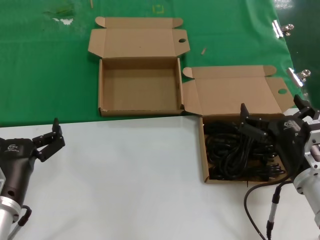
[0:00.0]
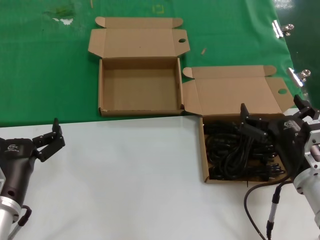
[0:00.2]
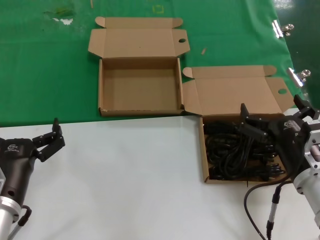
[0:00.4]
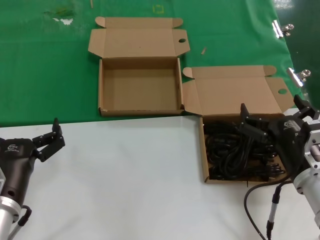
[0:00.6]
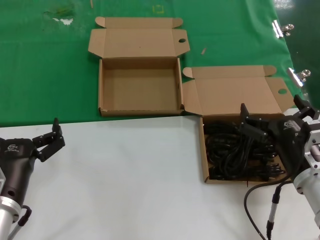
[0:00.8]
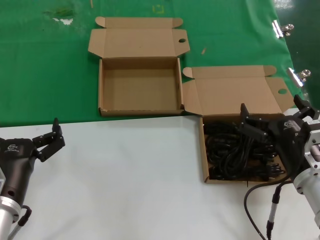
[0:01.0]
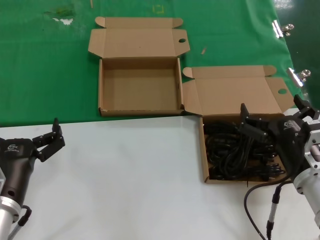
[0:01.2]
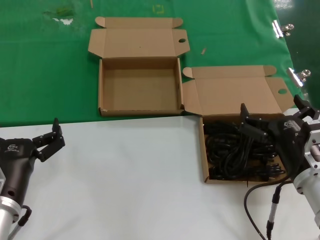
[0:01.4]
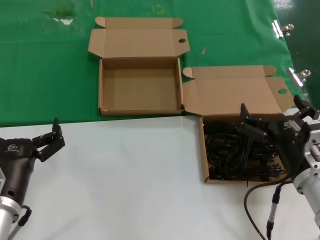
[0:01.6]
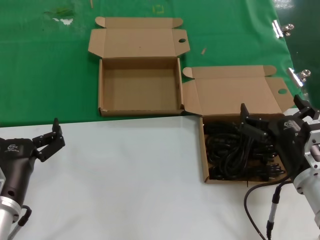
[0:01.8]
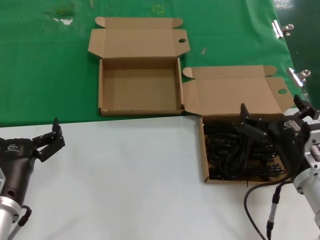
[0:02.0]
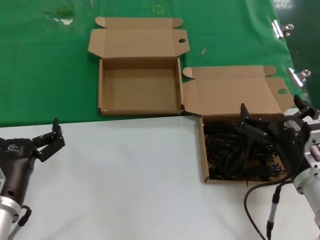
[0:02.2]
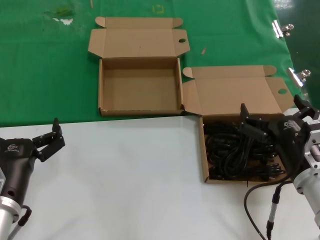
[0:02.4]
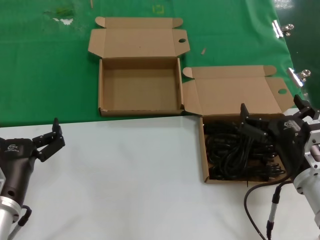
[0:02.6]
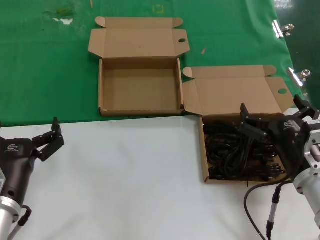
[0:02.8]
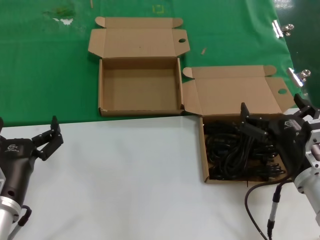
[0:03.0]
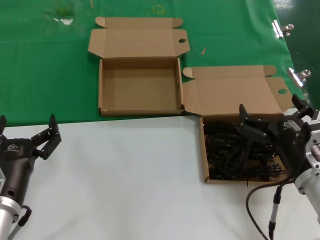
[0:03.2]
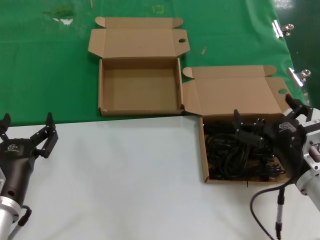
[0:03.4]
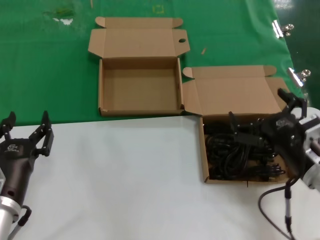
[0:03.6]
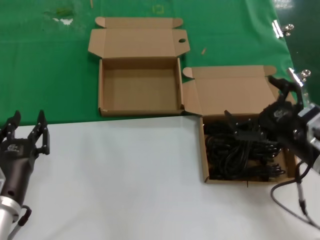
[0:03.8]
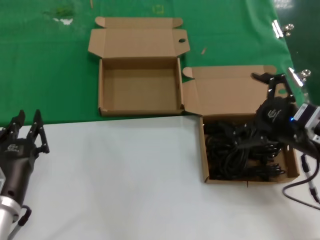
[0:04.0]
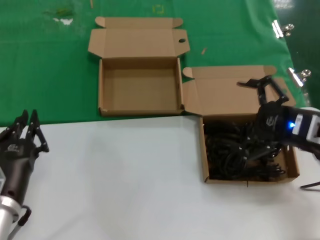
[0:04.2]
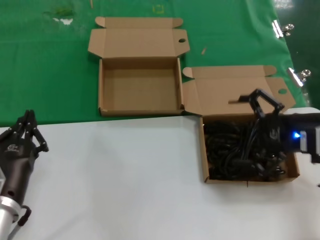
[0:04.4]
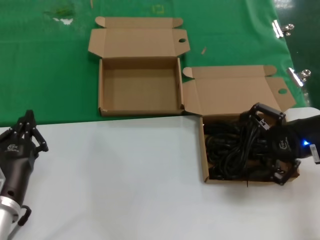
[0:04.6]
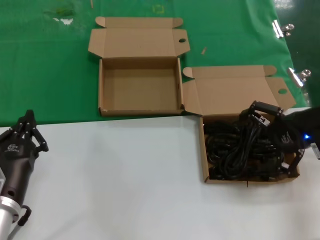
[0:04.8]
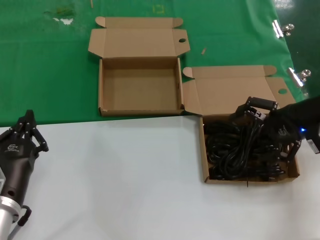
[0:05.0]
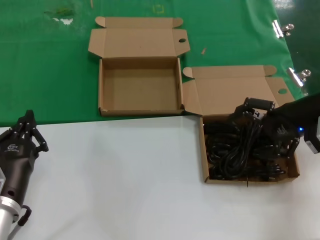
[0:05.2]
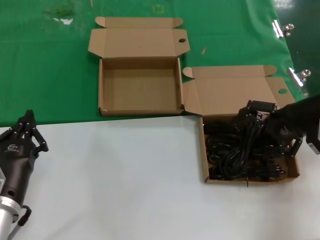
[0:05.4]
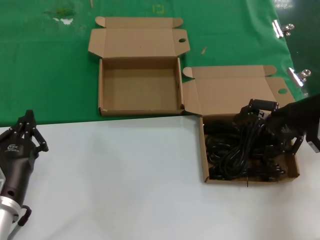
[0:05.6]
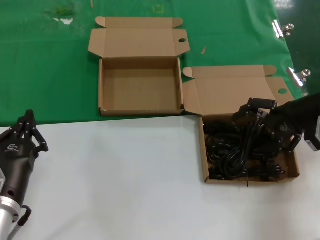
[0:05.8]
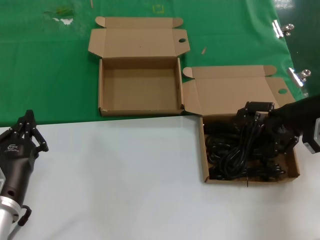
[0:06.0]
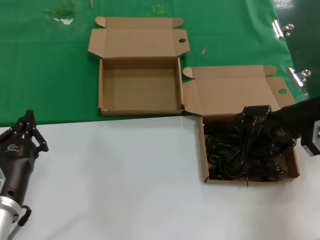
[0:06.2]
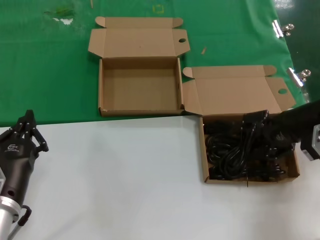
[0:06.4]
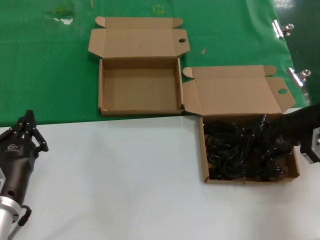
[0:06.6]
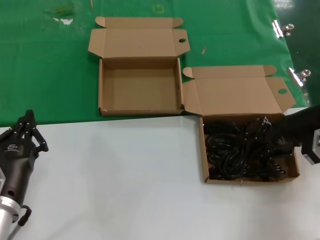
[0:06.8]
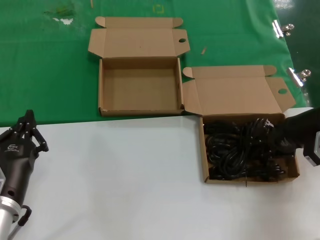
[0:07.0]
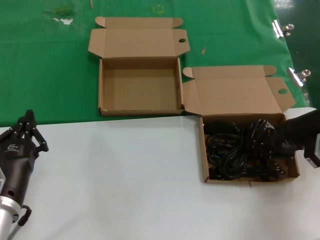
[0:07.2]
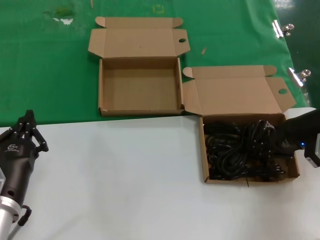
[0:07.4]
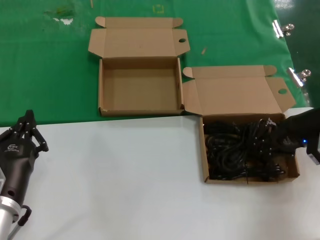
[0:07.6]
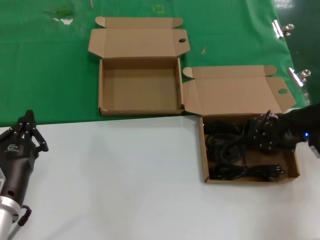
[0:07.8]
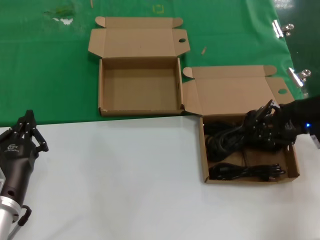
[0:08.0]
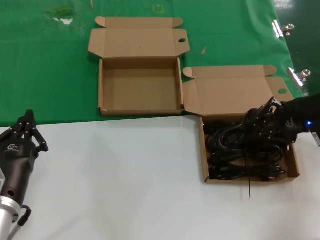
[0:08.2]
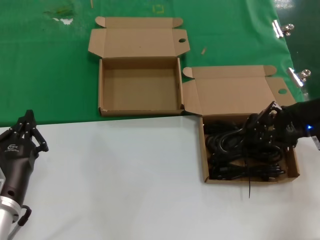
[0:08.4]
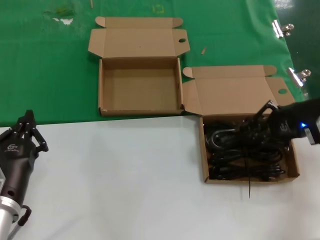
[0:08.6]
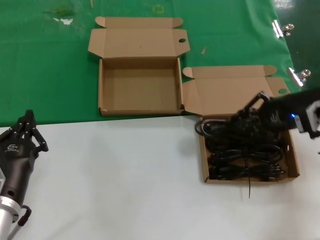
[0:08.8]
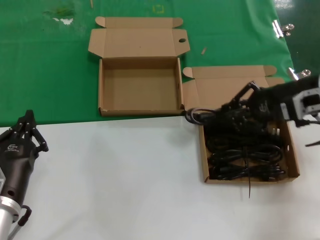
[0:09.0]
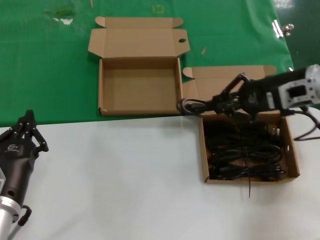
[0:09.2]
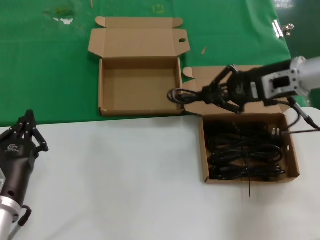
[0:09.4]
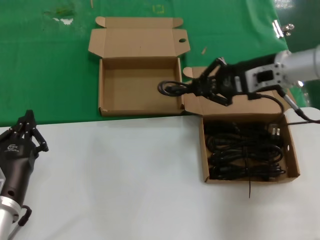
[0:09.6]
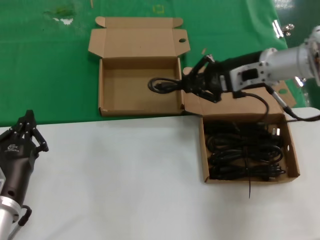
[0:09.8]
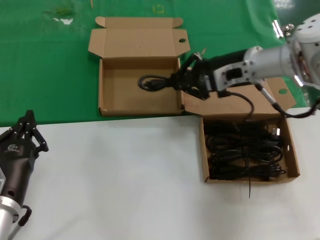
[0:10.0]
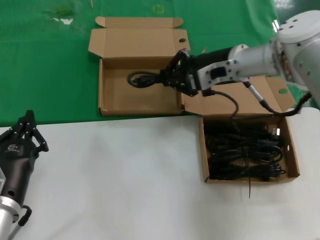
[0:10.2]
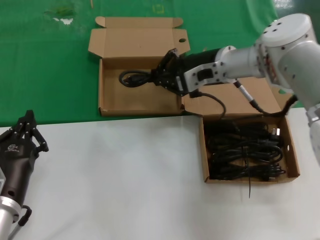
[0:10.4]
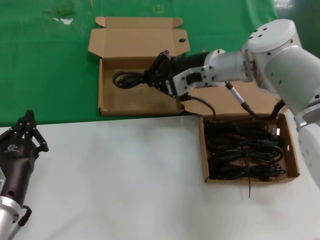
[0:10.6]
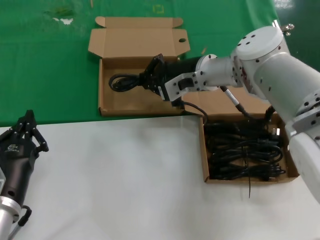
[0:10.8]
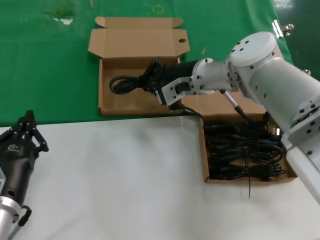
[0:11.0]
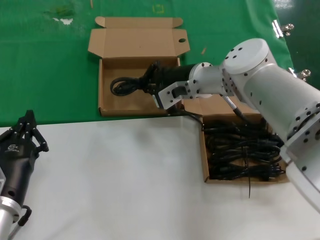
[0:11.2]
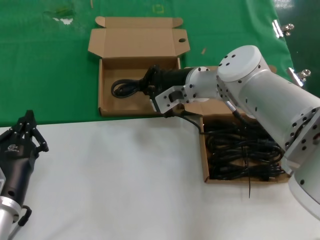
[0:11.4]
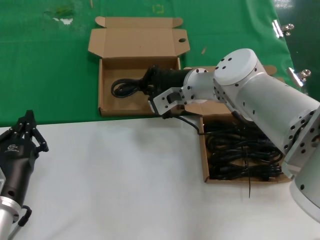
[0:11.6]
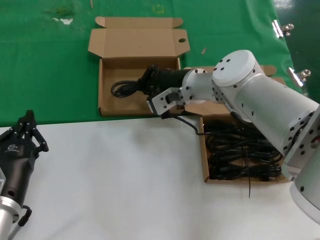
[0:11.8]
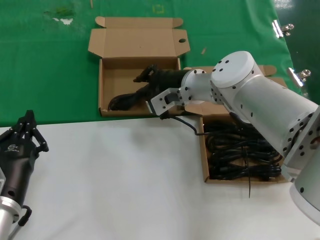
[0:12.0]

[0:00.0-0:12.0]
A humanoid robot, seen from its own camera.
Task of the whole recording: take the parts from the box containing them and put them into an empty box.
Step, 0:00.0 to 0:06.8: Grasp the data cable.
0:00.0 to 0:03.0: Both hands stay about where they are.
0:03.0 to 0:04.4: The right hand travels upward, to the right and forward by approximately 15 cm.
0:04.4 to 0:06.0: The right hand moves forward, roughly 10 cm.
0:06.0 to 0:07.6: The hands stay close to where they were, moving slightly.
0:07.6 to 0:09.0: The right hand changes place by about 5 cm.
0:09.0 to 0:10.4: The right hand travels to the left and forward by roughly 20 cm.
0:10.4 to 0:12.0: The right hand heads to the left and downward, covering some 10 cm.

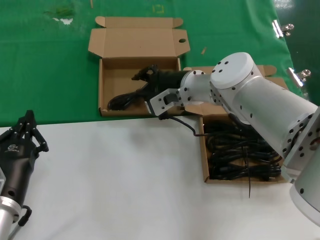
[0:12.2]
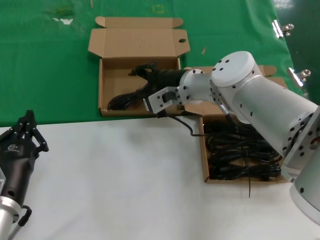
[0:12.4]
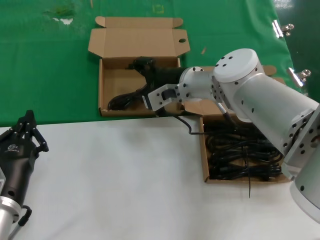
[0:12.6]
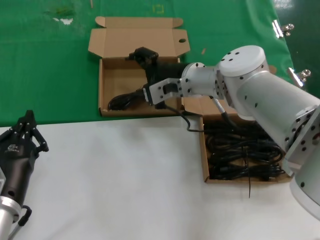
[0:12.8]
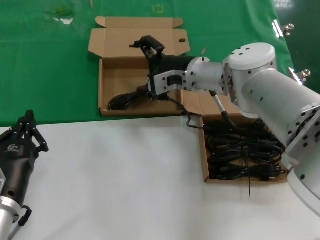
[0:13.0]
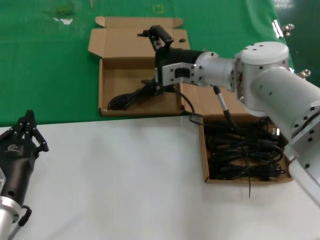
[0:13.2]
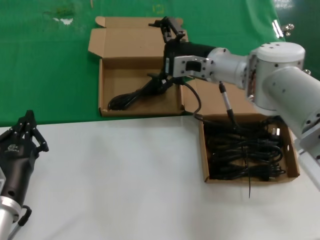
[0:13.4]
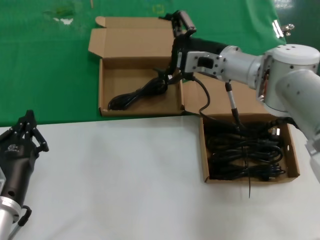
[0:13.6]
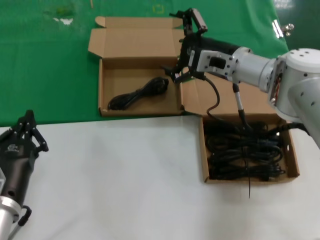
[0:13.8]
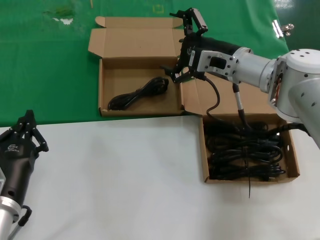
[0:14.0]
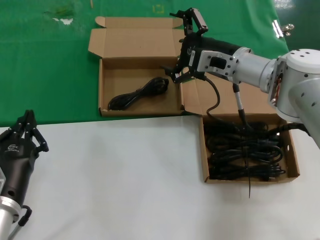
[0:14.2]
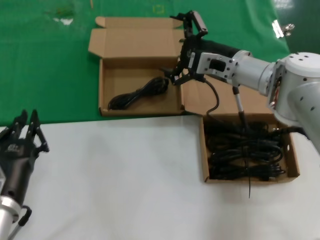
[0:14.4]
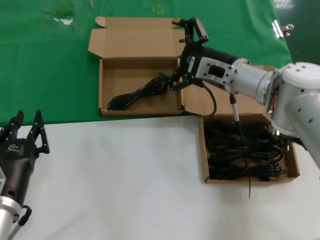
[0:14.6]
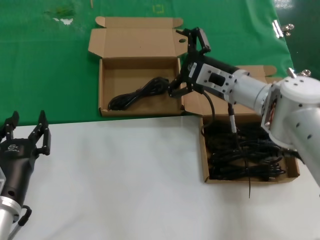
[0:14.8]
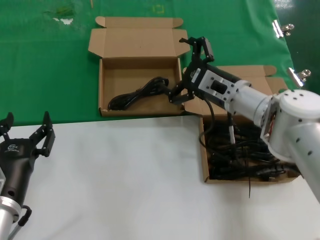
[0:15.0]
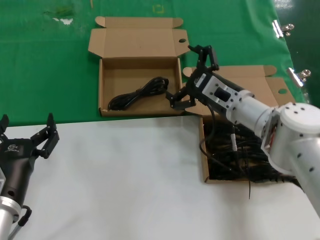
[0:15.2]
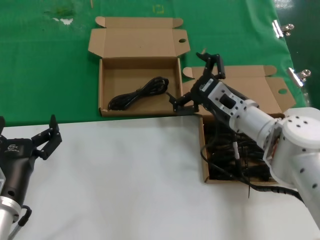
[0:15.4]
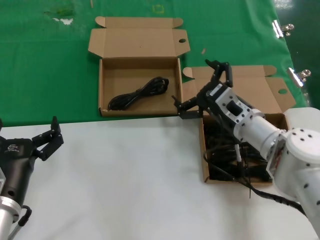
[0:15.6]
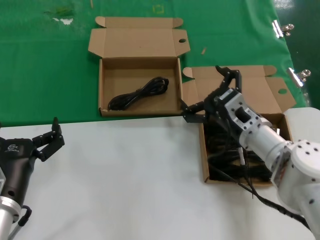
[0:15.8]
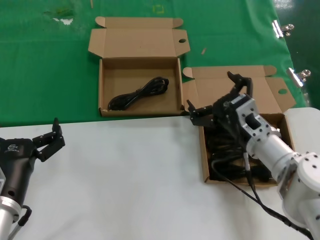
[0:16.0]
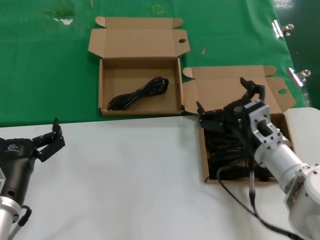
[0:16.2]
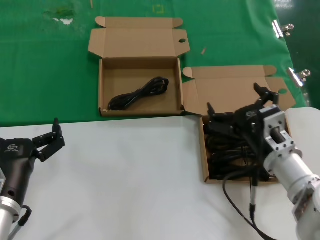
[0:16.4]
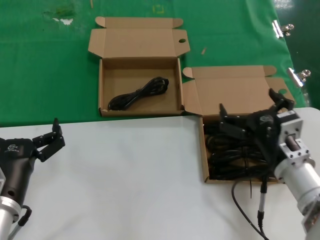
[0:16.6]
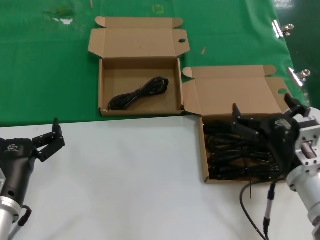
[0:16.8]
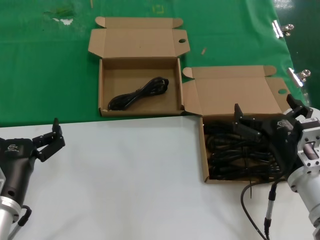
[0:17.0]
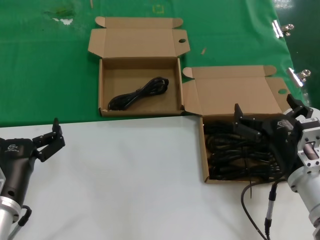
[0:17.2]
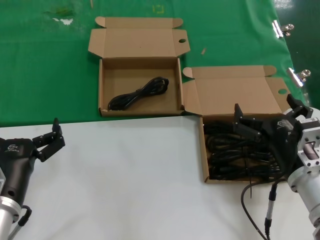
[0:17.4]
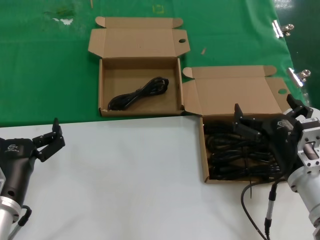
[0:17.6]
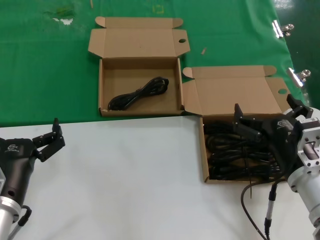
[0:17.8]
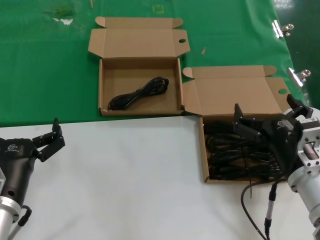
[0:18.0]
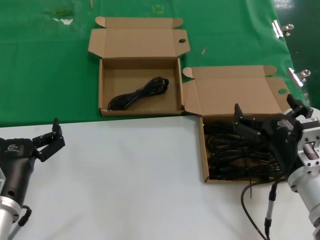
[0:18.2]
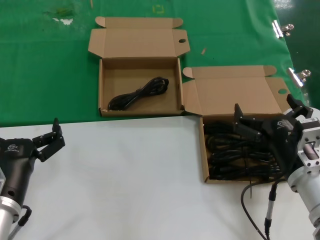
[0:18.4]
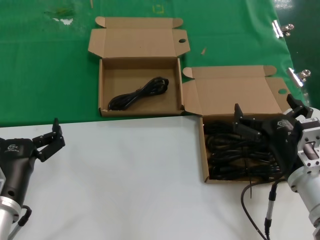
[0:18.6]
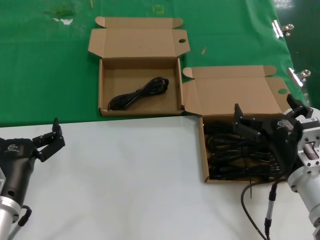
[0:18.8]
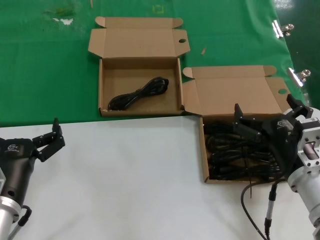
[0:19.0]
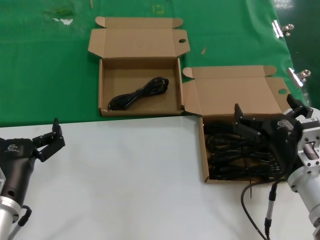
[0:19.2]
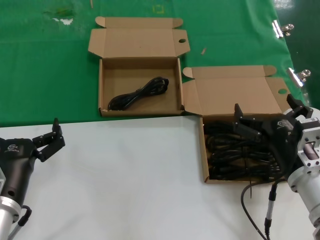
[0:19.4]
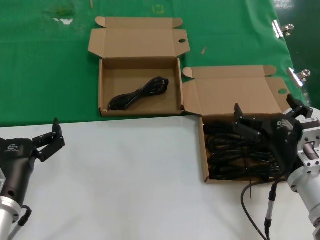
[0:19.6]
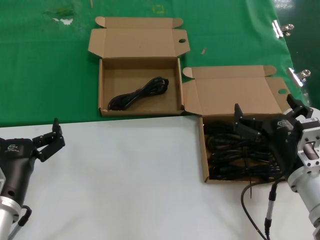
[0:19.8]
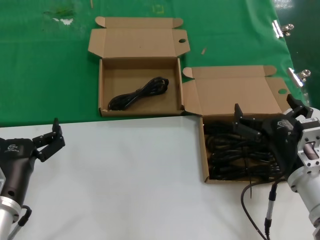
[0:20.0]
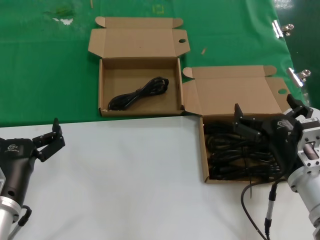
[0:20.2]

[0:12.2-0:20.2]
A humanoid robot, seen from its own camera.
Task of the whole recording: take the parts from the box containing them and put them into an empty box.
0:12.2 to 0:13.8: The right hand travels to the right by some 10 cm.
0:13.8 to 0:15.4: The right hand travels downward and backward by roughly 10 cm.
0:15.4 to 0:17.0: The right hand moves backward, some 15 cm.
0:17.0 to 0:20.2: The two hands keep their place.
